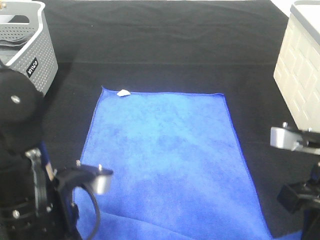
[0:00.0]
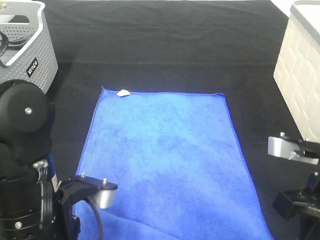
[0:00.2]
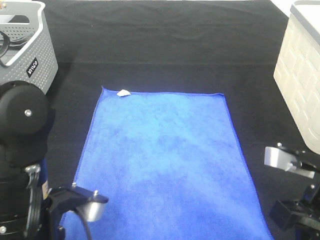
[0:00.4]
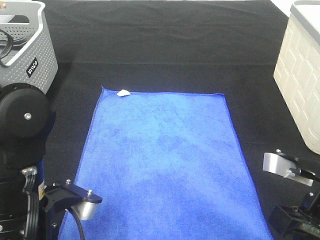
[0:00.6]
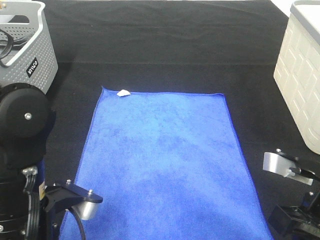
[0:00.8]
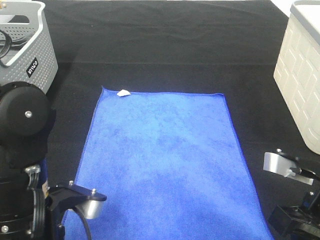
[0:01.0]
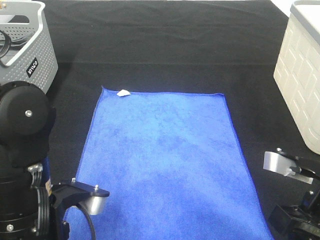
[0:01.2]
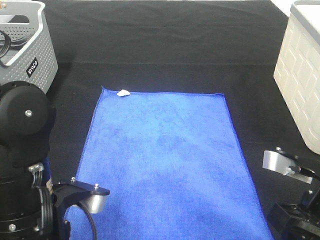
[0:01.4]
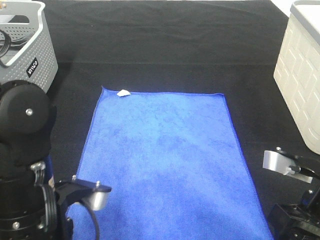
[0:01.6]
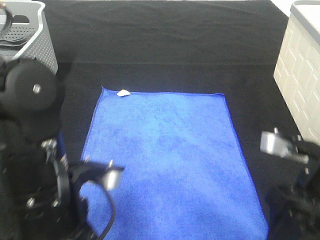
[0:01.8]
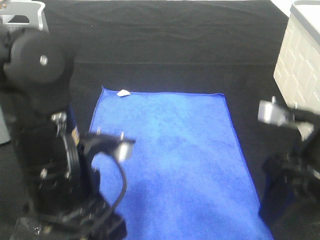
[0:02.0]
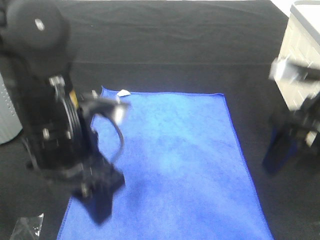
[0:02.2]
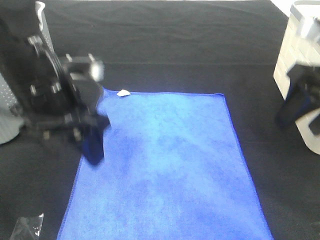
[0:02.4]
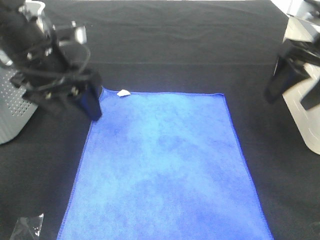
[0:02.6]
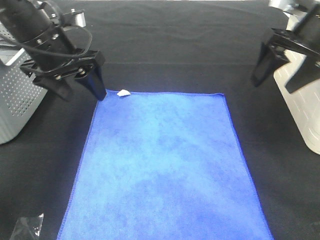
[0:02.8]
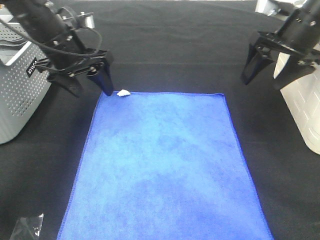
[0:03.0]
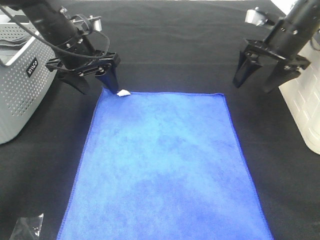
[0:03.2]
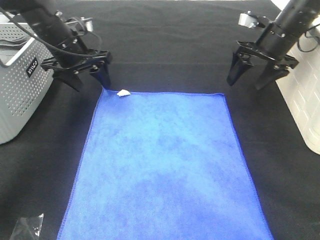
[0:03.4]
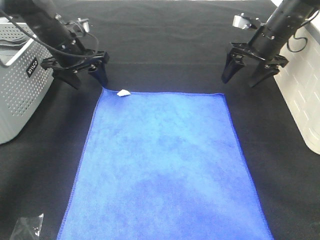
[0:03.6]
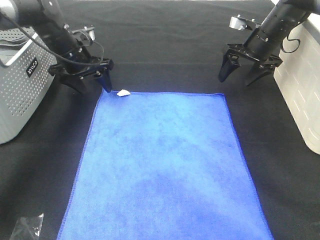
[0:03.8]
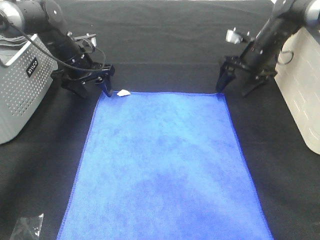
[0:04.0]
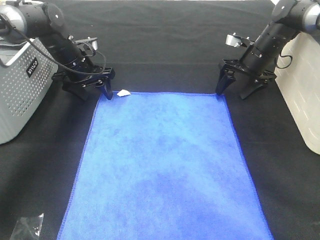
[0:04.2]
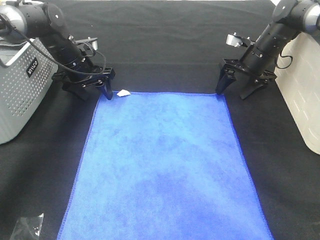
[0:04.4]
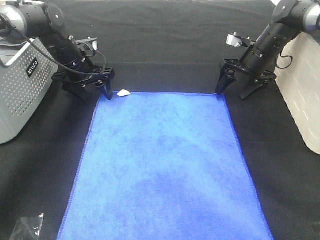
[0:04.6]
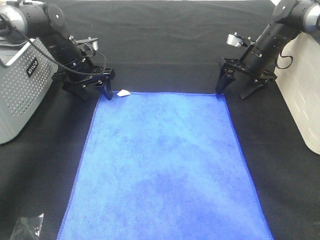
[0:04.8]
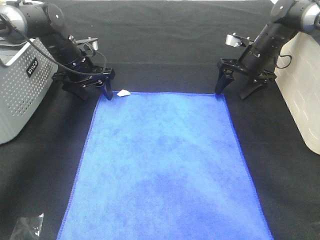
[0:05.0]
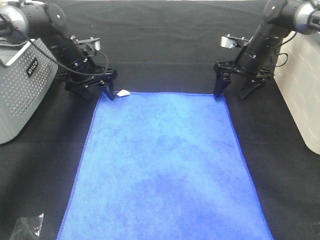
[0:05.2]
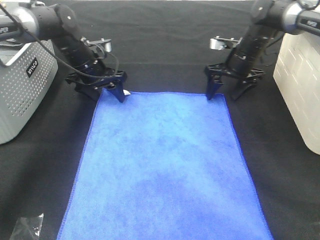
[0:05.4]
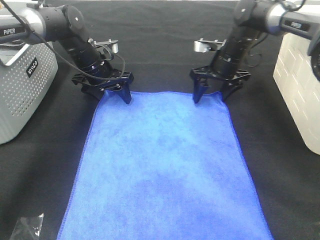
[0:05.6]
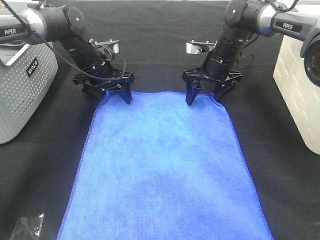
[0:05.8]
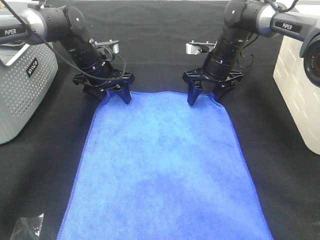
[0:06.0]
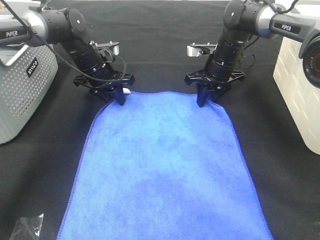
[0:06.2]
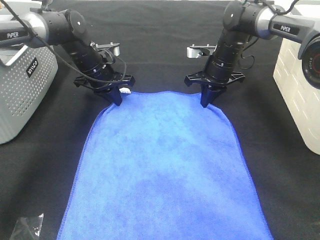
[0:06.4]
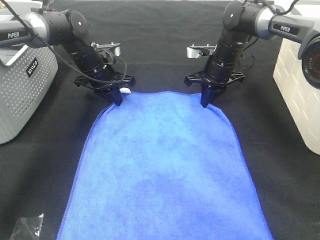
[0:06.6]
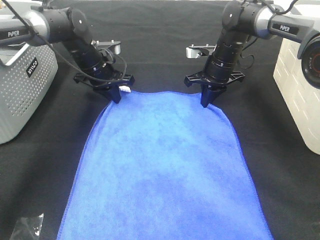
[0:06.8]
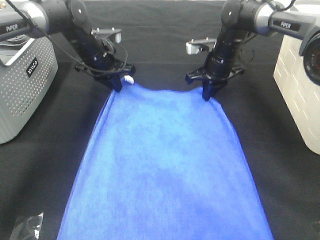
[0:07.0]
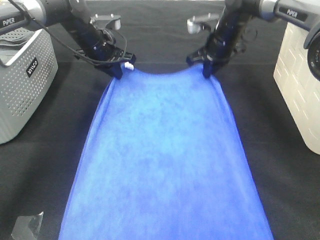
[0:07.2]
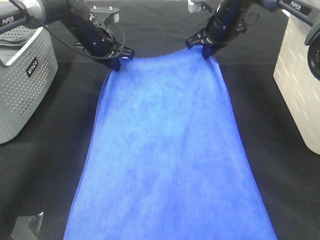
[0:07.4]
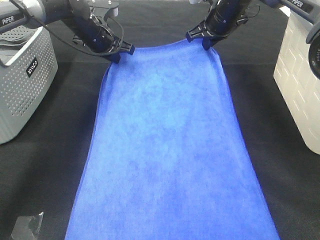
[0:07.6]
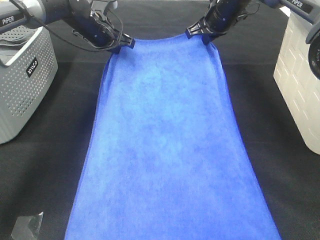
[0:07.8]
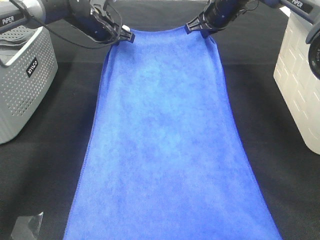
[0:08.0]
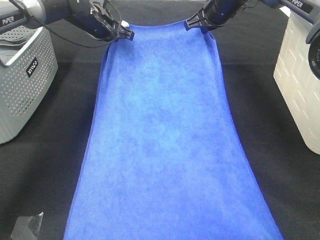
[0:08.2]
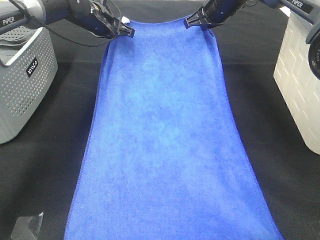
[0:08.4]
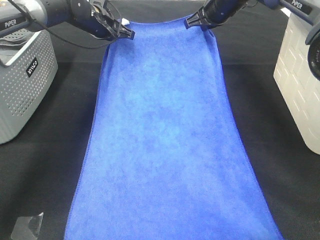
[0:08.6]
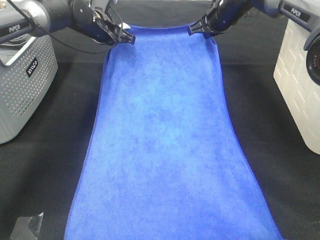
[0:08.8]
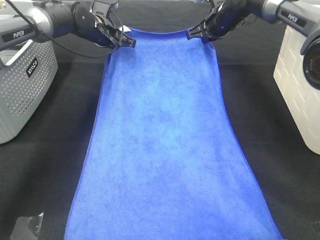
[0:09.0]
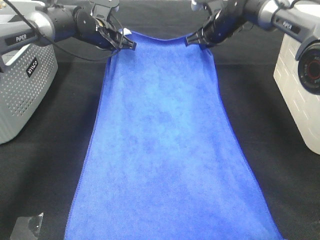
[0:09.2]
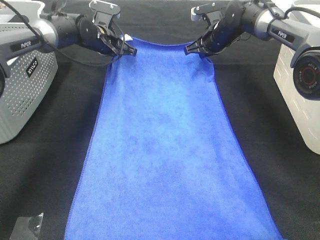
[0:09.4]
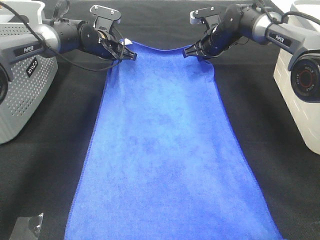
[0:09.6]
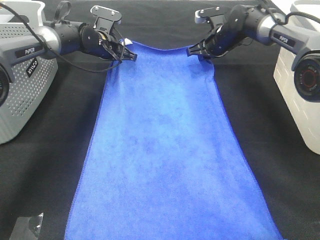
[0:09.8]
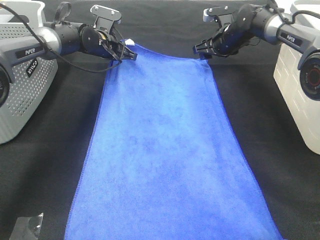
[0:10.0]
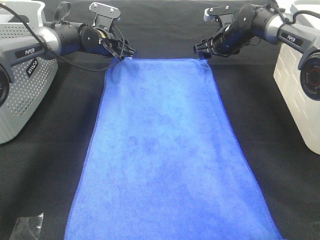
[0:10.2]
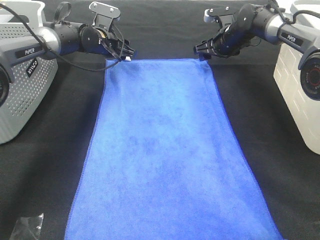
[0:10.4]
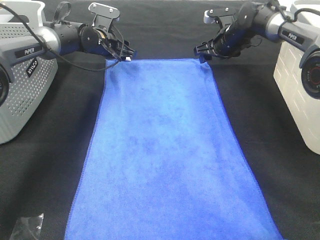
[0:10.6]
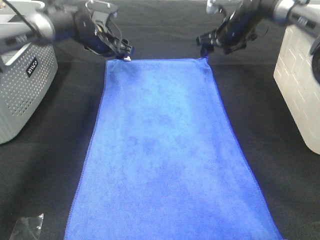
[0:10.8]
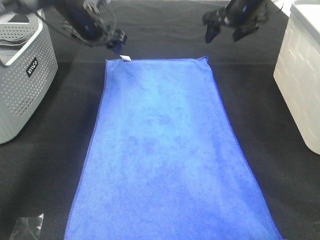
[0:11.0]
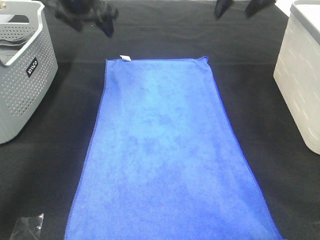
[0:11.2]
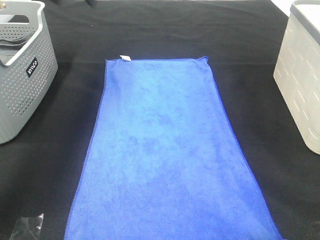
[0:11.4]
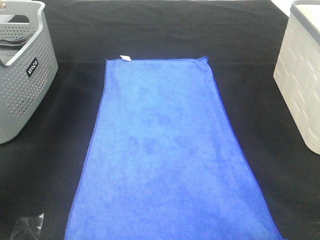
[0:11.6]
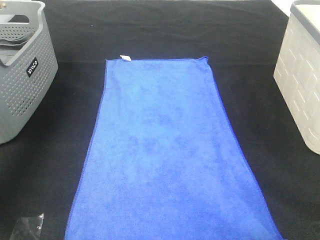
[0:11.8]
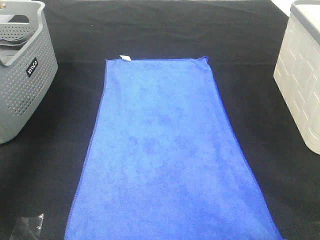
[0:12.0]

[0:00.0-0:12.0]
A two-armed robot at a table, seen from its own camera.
Task of the whole recording: Remove the towel and place it.
Step, 0:00.0 to 0:03.8: Left hand:adjust the blue towel.
Step, 0:00.0 to 0:03.8: Right hand:adjust the blue towel.
0:00.0 to 0:01.6: The left gripper opens up. Meanwhile the right gripper opens its fingers.
0:01.6 to 0:03.0: The two grippers go some 25 cm forward.
0:03.0 to 0:04.4: The left gripper goes roughly 15 cm forward and downward; the right gripper moves downward and forward, roughly 15 cm.
0:04.4 to 0:06.0: The right gripper travels to the left by roughly 10 cm.
0:06.0 to 0:07.6: The left gripper is displaced upward by approximately 5 cm, and closes. Meanwhile the right gripper heads upward, covering some 10 cm, and closes up.
0:07.6 to 0:09.0: The grippers make only small movements.
0:09.0 to 0:10.4: The right gripper travels downward by some 5 cm, and opens its fingers, while the left gripper opens its fingers.
0:10.4 to 0:12.0: The left gripper goes roughly 40 cm upward, to the left and backward. The right gripper shifts roughly 40 cm upward and backward.

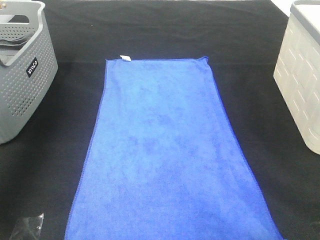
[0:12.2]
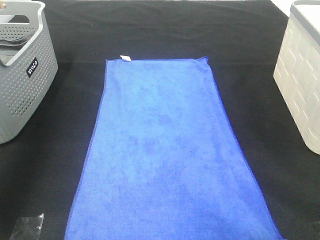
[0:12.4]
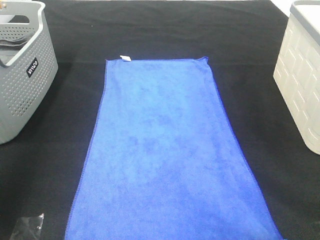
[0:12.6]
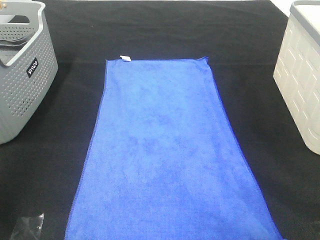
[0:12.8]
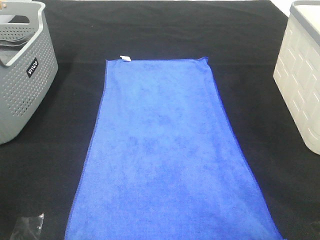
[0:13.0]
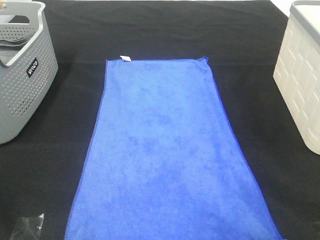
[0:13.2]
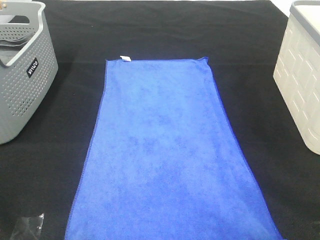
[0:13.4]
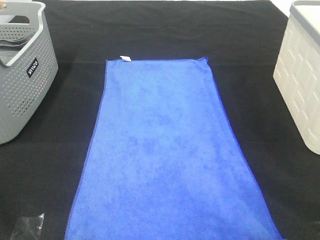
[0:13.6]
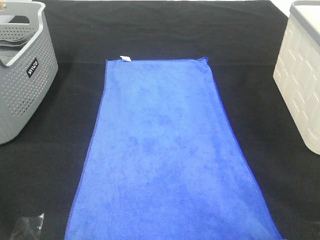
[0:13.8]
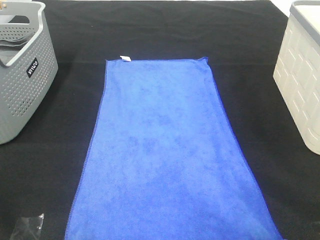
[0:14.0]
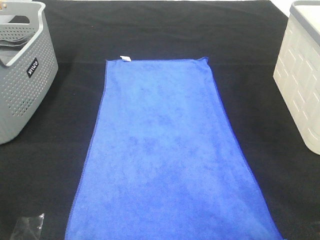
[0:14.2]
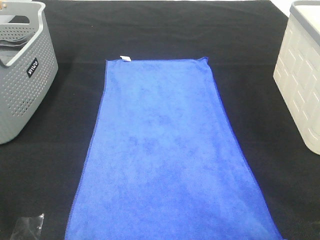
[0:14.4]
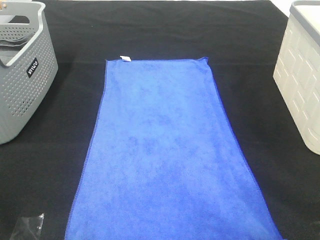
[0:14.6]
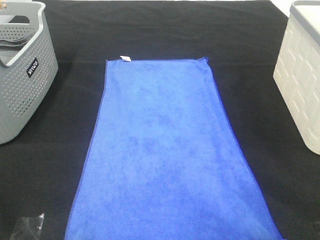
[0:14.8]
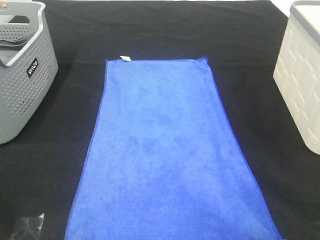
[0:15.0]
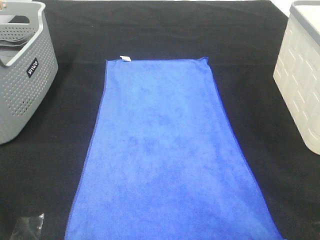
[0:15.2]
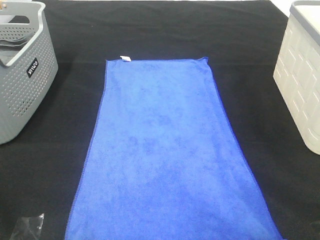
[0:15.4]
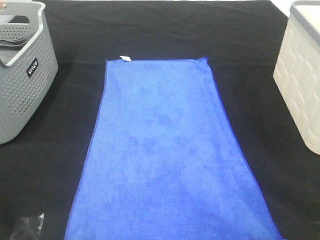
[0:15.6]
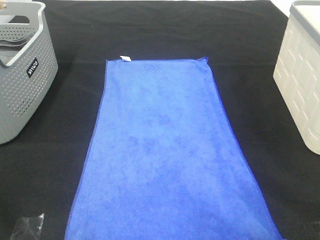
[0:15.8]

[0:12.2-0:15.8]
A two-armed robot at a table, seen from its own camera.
Task of the whole recording: Remove the towel and place it.
0:12.2 to 0:14.0: The left gripper heads backward, covering about 35 cm.
0:14.0 to 0:15.8: The two grippers keep their place.

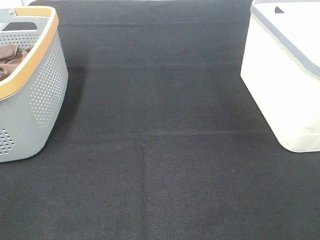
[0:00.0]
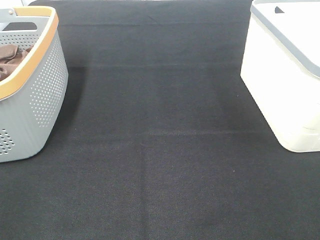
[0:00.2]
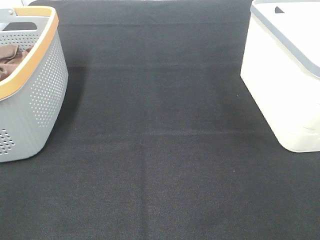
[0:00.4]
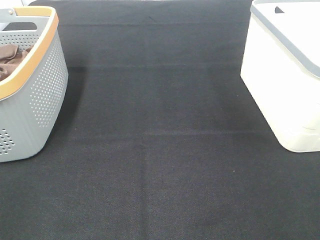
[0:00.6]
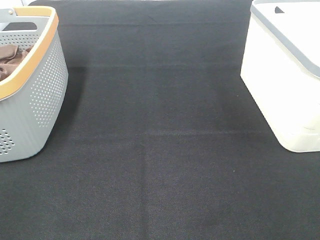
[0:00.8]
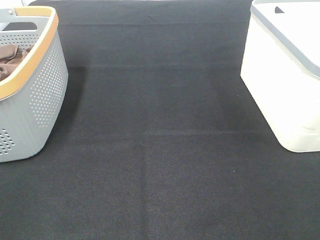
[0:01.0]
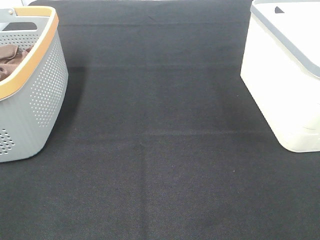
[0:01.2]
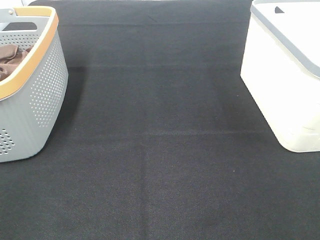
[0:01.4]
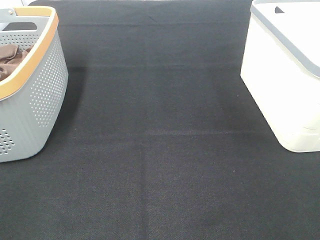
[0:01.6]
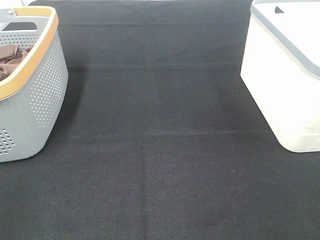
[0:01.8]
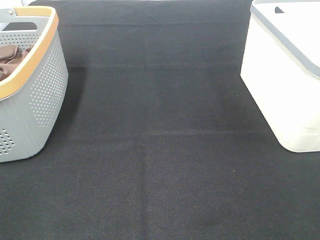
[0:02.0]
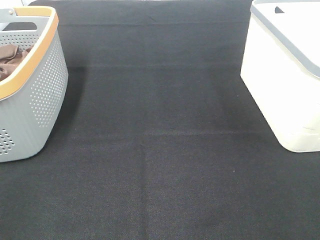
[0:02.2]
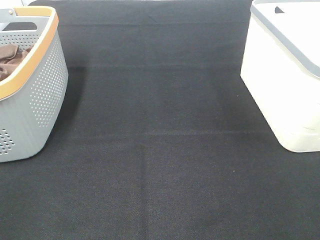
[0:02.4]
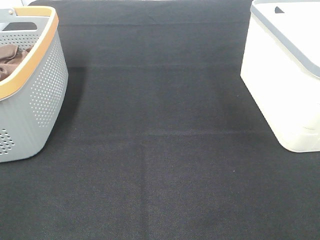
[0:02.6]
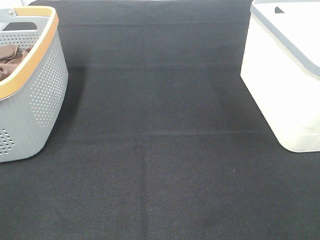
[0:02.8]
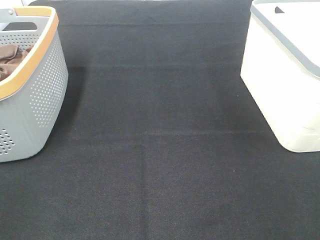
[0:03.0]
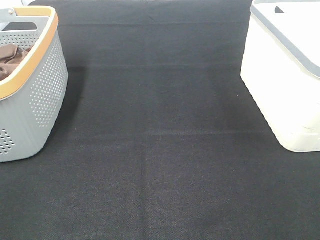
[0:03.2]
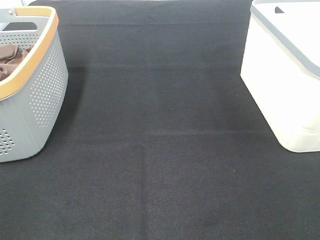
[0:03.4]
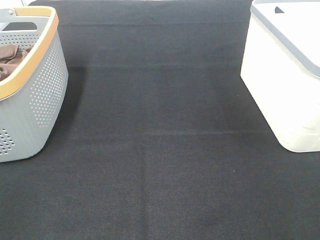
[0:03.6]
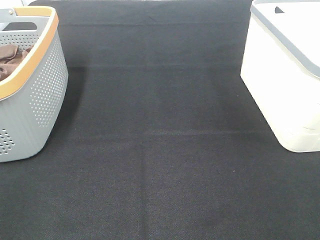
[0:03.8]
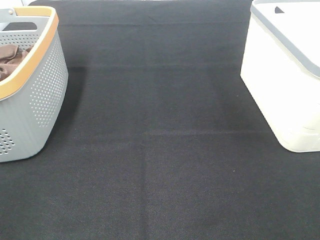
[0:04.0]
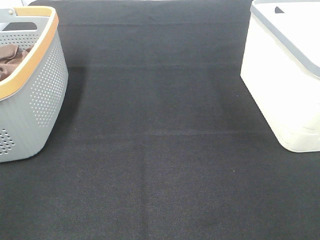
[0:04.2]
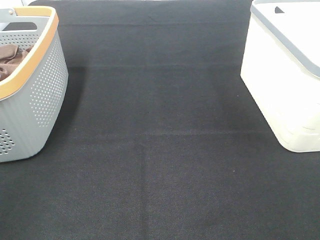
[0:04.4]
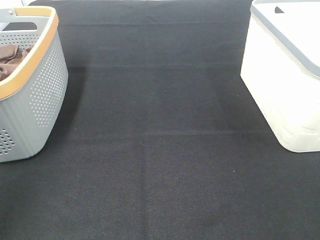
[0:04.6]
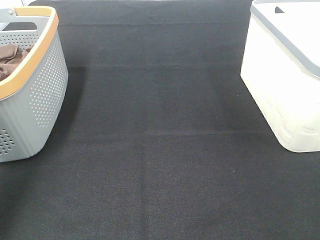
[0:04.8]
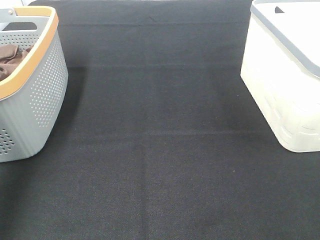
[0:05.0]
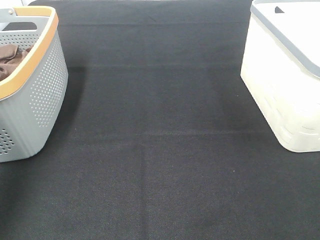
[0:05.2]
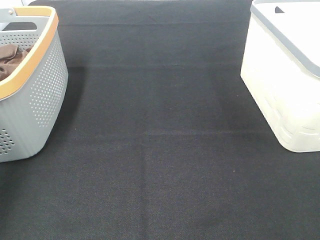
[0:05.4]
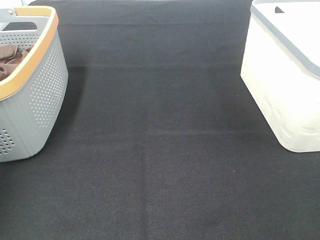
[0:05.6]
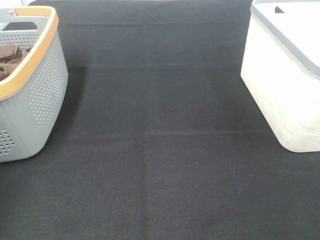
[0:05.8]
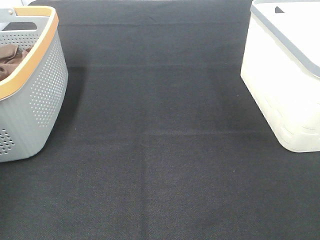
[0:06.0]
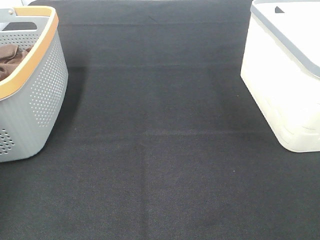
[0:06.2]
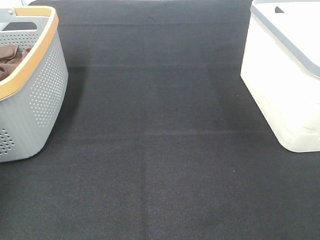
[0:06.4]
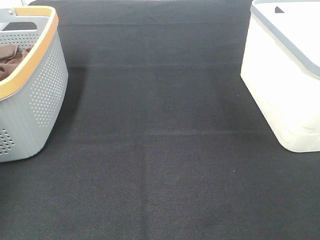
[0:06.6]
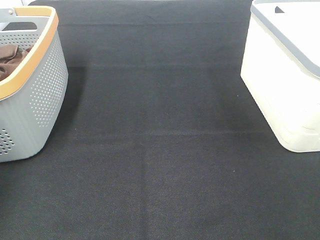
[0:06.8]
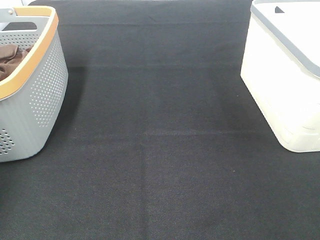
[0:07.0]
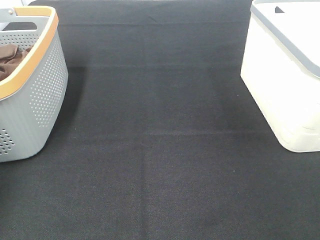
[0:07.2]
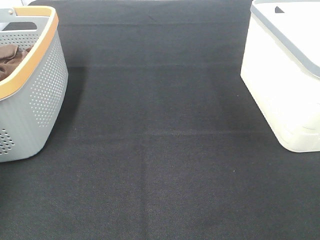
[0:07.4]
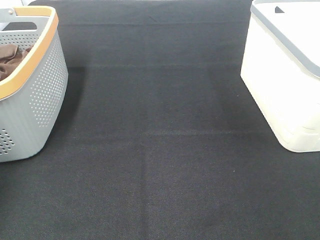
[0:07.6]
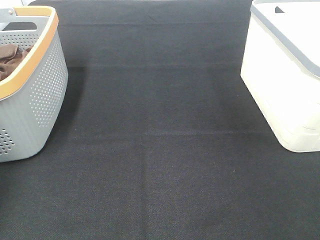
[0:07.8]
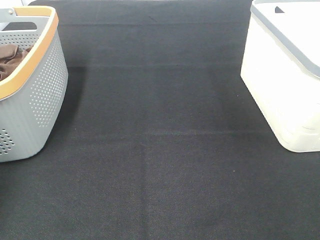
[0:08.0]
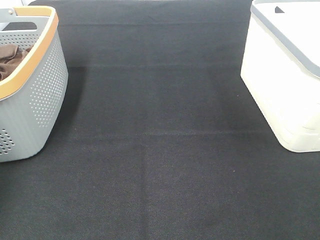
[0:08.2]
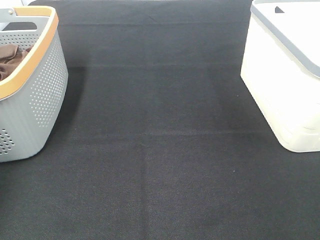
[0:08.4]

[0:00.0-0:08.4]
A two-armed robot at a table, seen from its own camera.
Task of the whole recording: Remove the towel and place it.
0:00.0 to 0:02.8: The two grippers keep their place.
